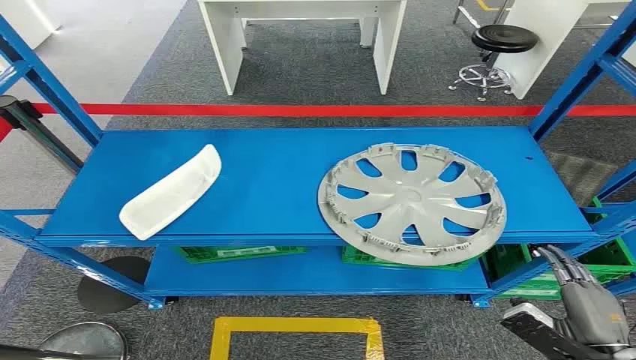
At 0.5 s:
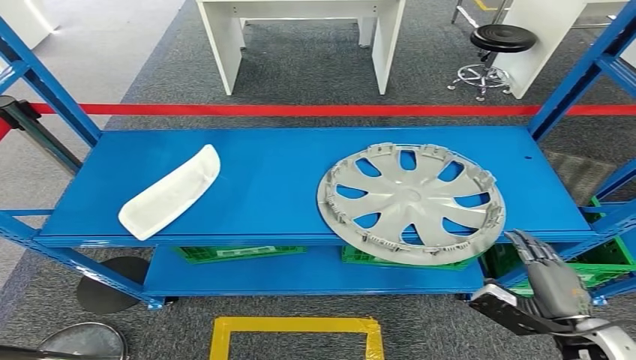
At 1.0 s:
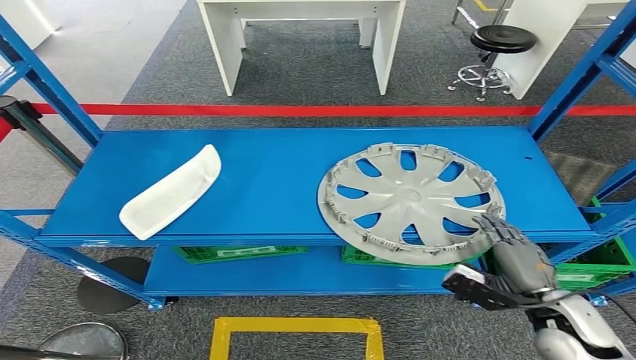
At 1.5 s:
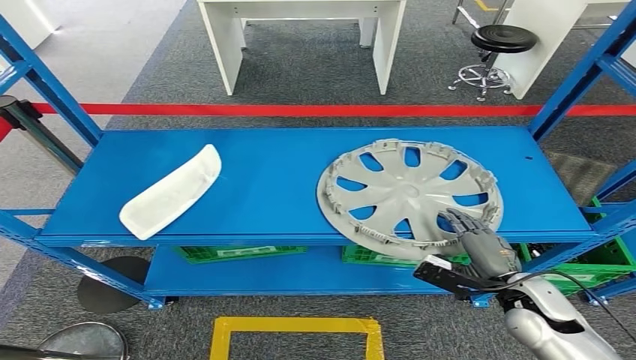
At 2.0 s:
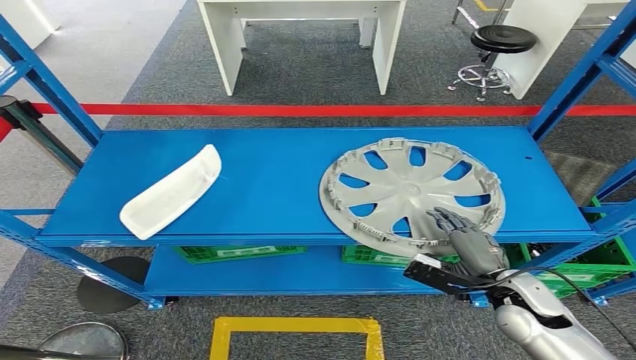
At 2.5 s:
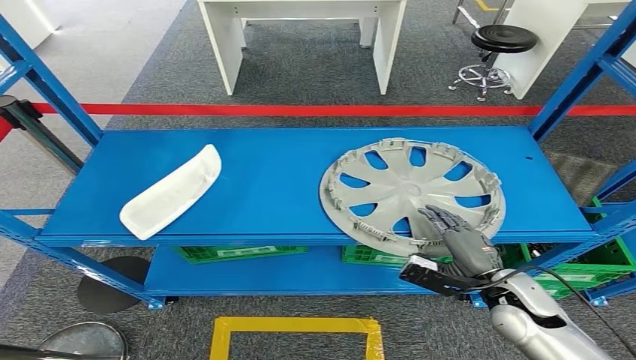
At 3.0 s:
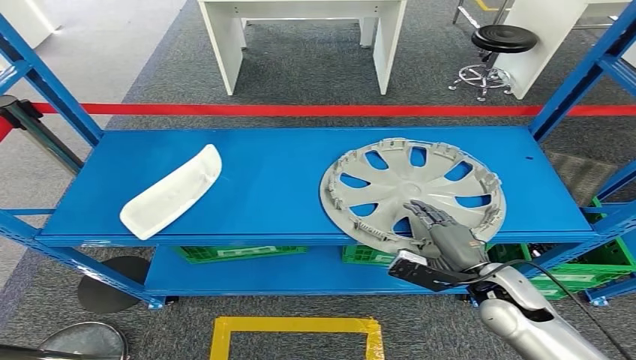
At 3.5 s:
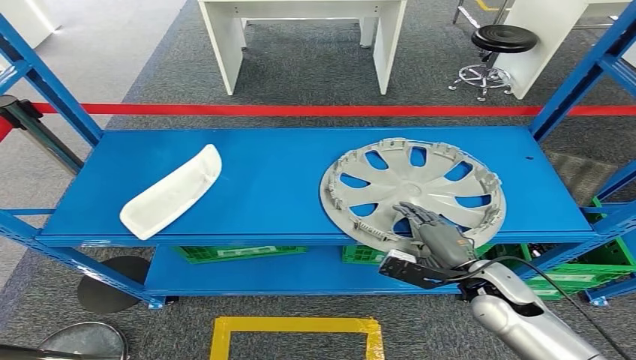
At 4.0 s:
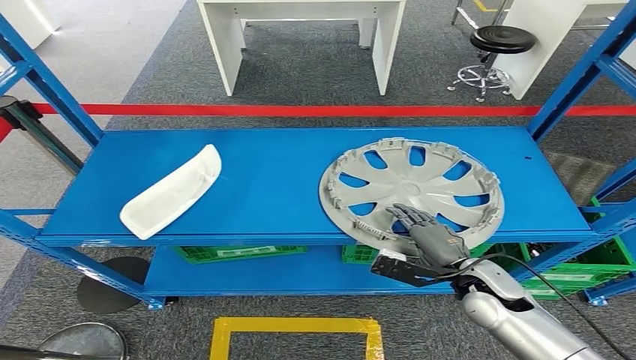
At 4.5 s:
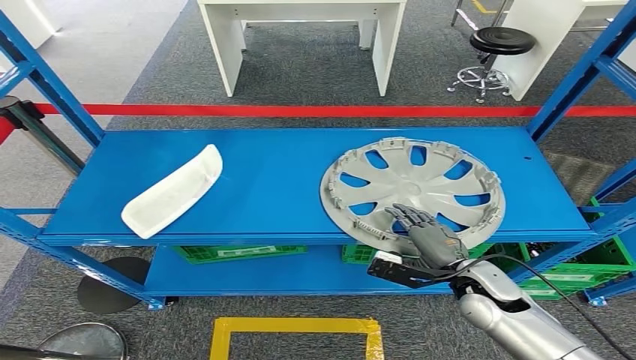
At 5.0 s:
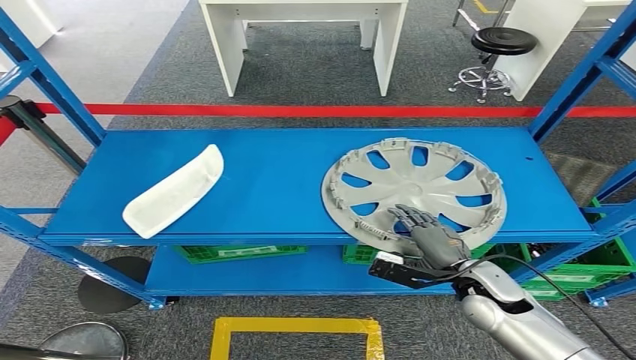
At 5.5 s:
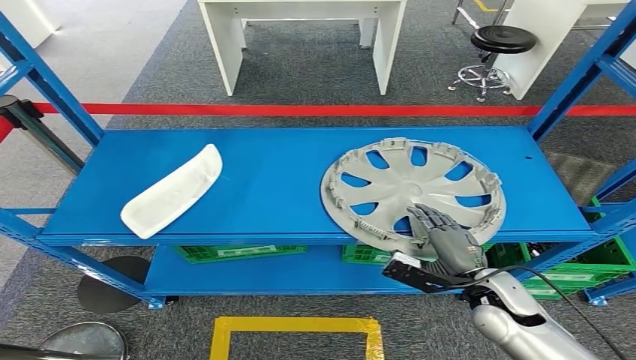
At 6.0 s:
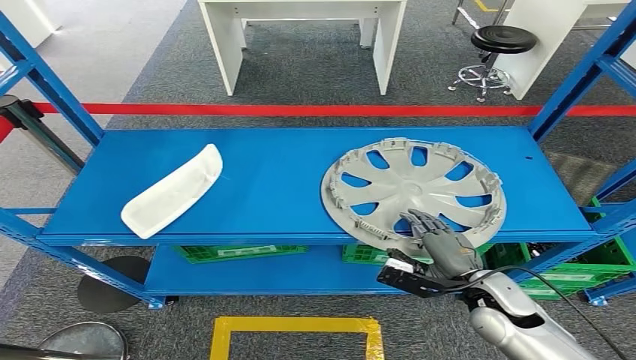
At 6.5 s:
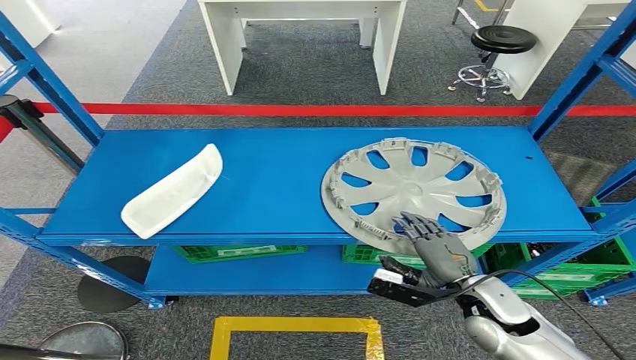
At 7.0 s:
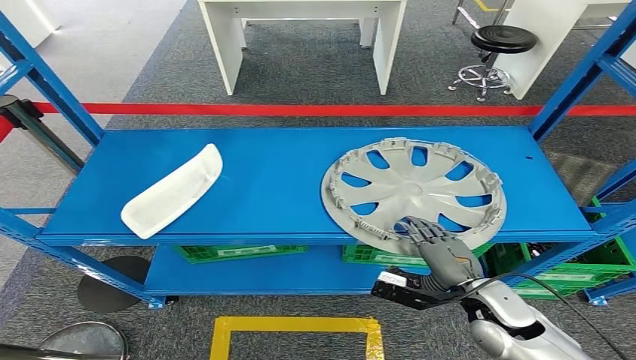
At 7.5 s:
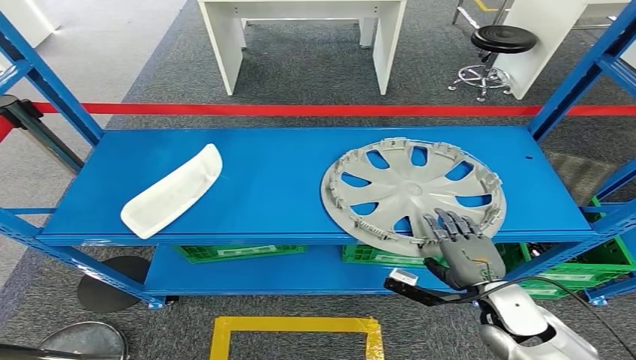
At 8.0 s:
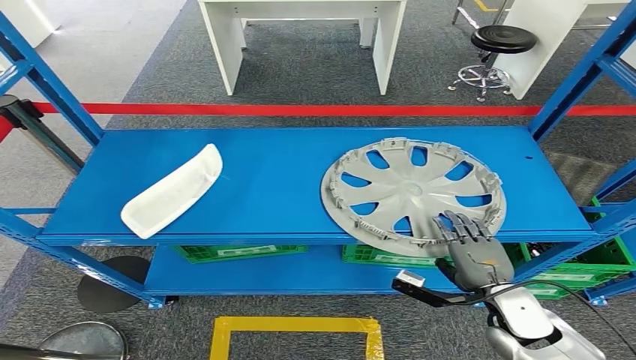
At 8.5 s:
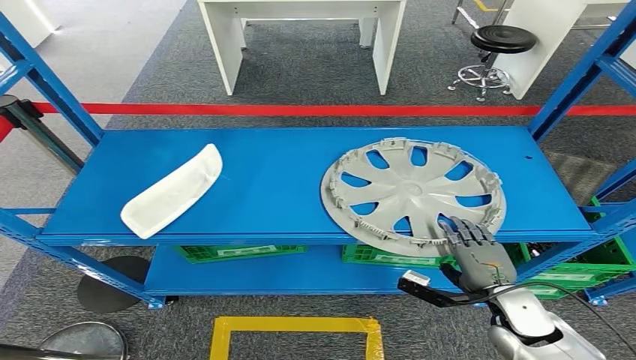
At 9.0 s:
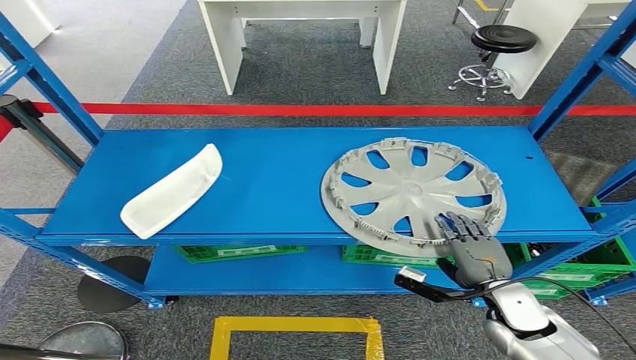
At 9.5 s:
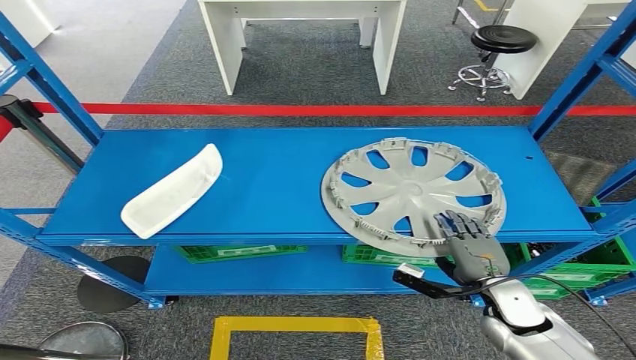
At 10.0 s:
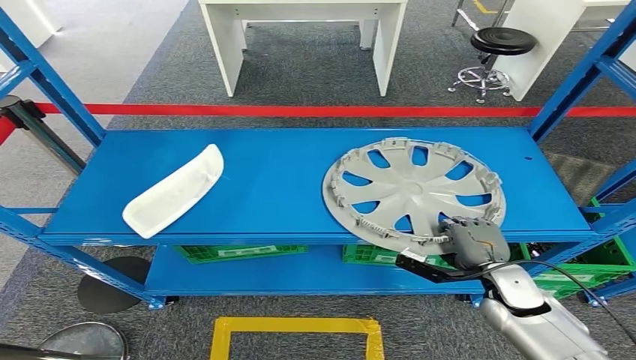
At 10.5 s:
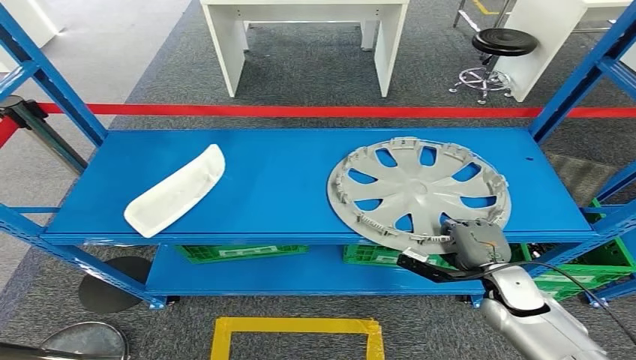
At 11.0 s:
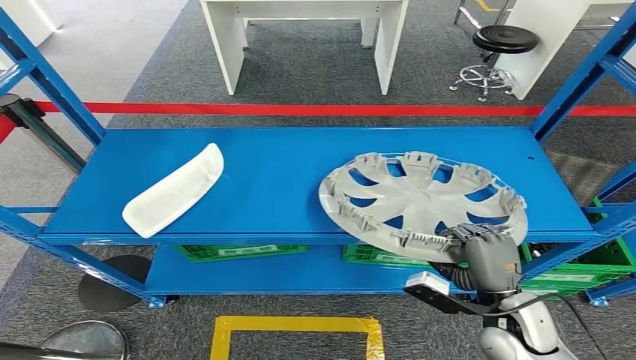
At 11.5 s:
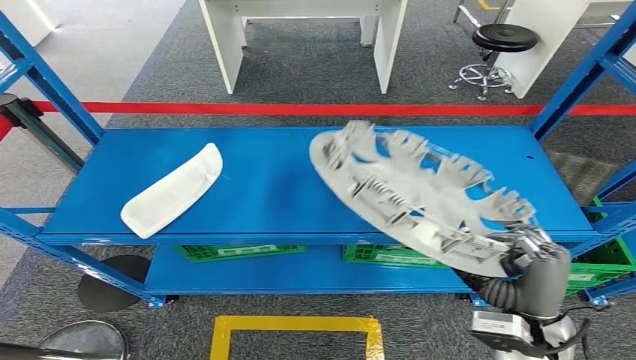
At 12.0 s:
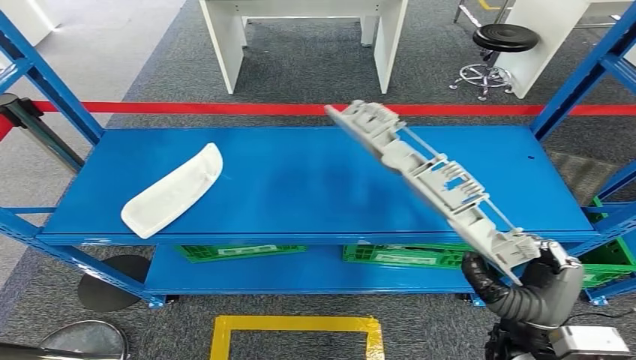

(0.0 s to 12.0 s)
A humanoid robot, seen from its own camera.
2.0 s - 4.0 s: The right hand changes place by some 5 cm.
4.0 s - 6.0 s: The hands stay close to where they were, moving slightly.
8.0 s - 10.0 s: The right hand ends up about 5 cm from where it was.

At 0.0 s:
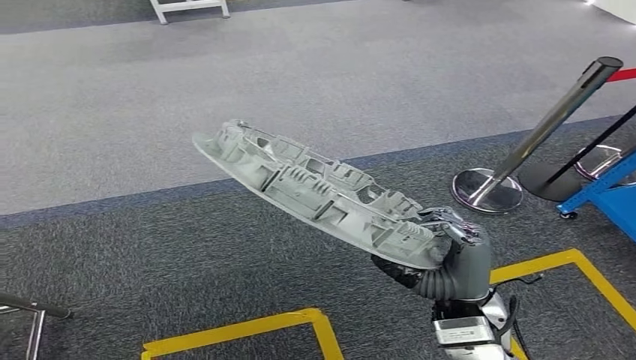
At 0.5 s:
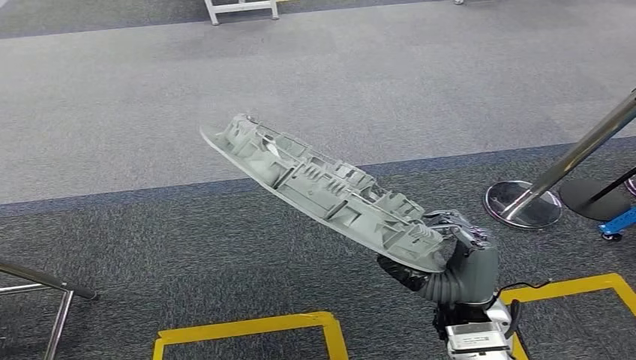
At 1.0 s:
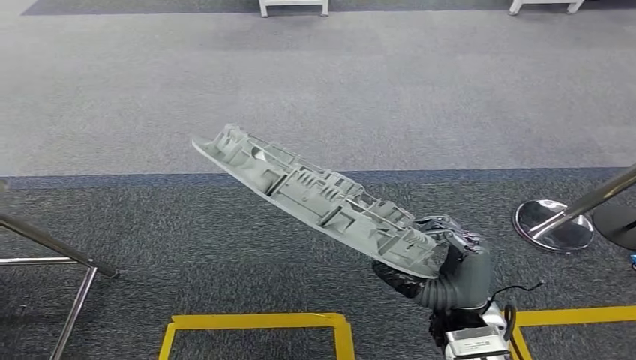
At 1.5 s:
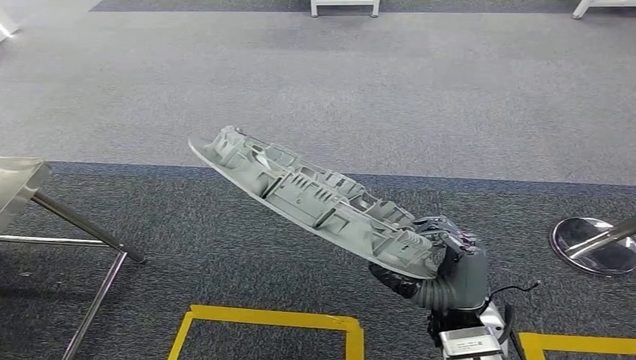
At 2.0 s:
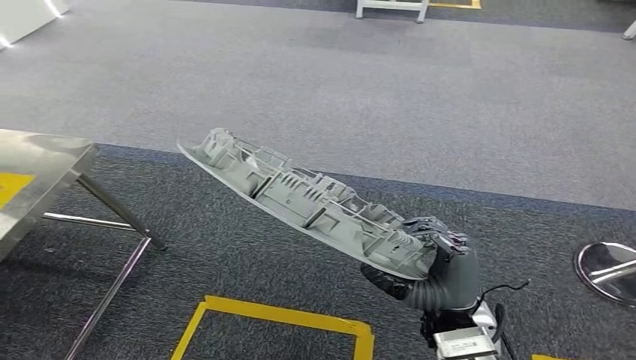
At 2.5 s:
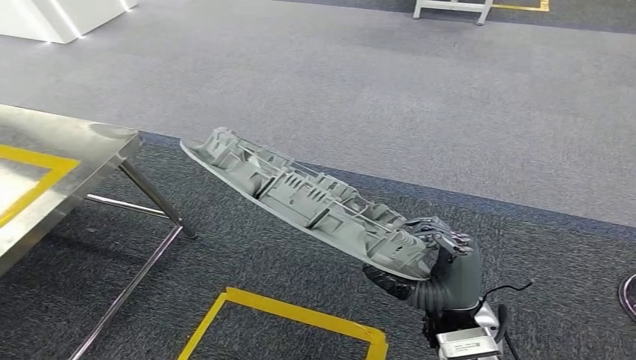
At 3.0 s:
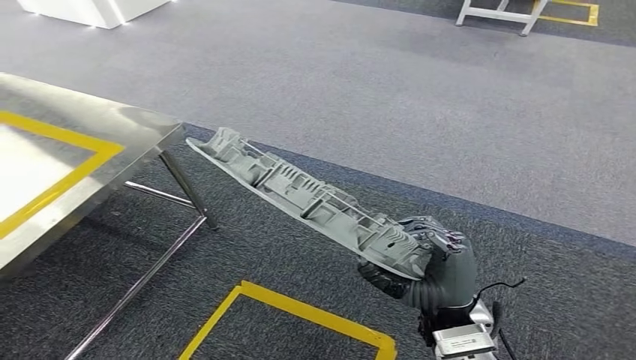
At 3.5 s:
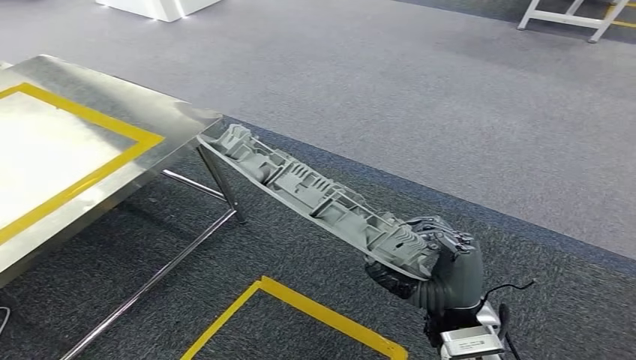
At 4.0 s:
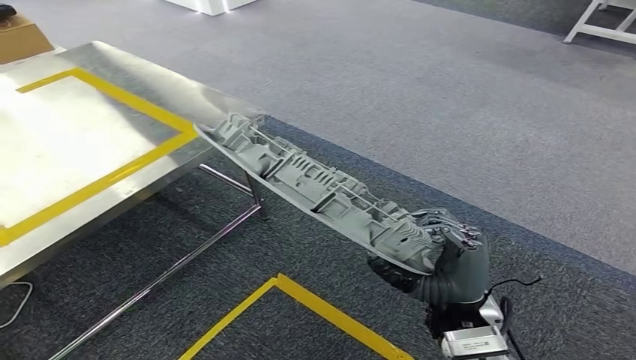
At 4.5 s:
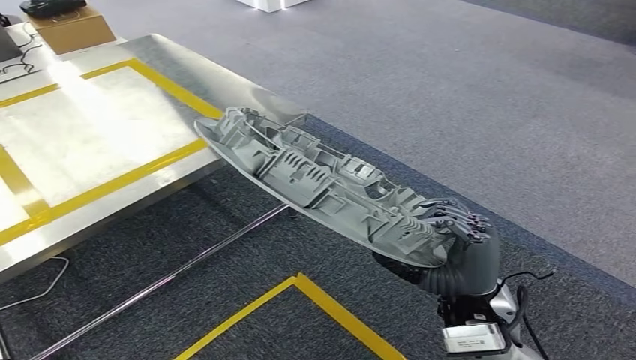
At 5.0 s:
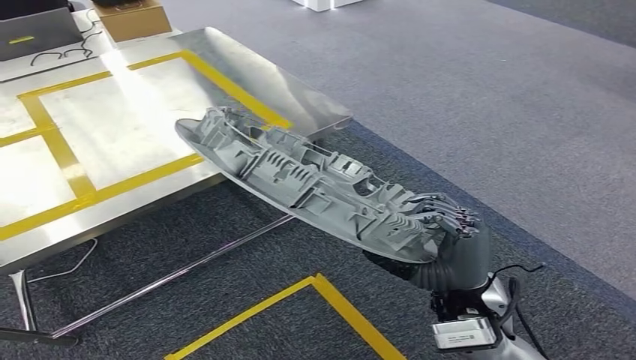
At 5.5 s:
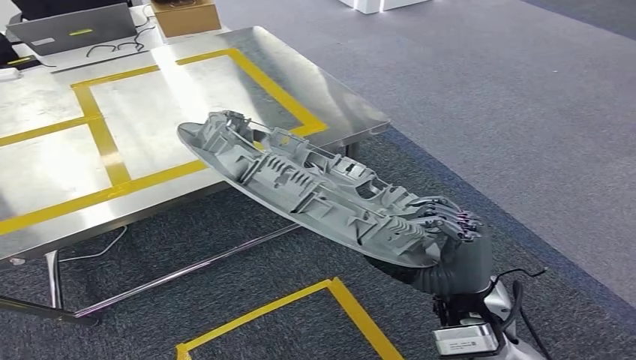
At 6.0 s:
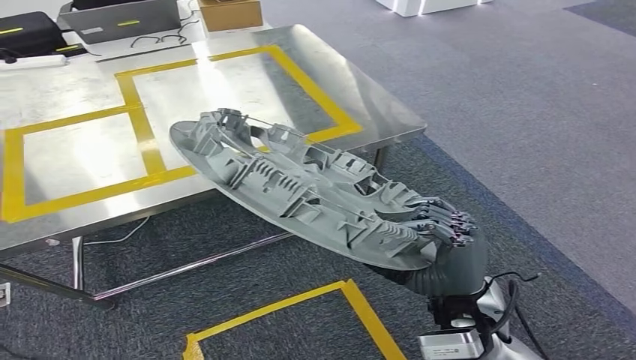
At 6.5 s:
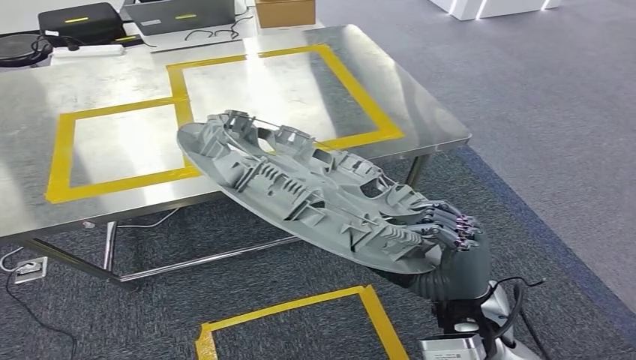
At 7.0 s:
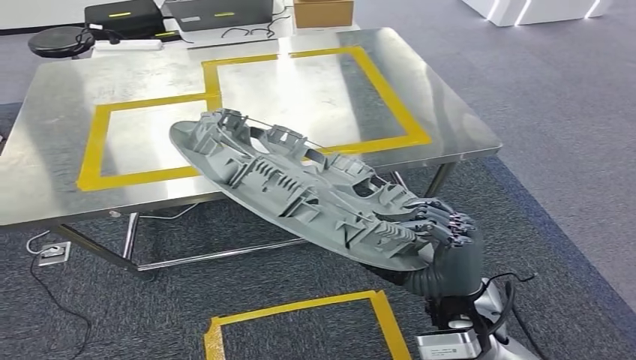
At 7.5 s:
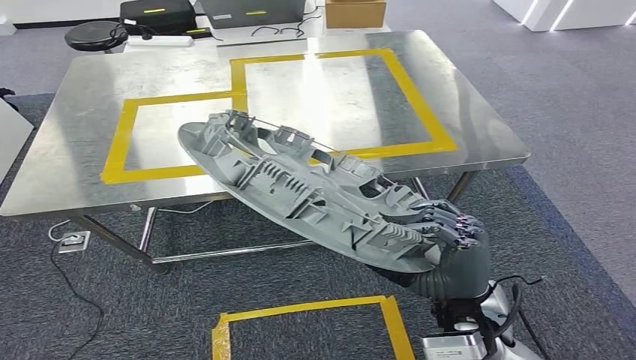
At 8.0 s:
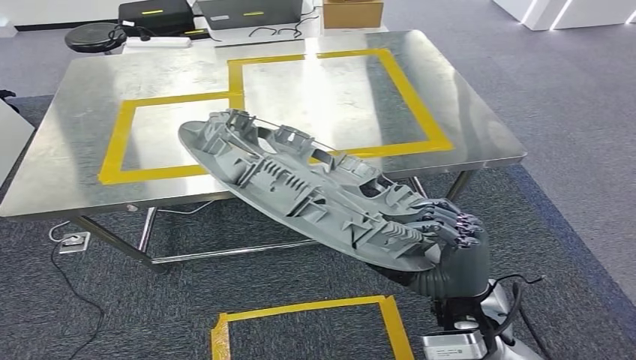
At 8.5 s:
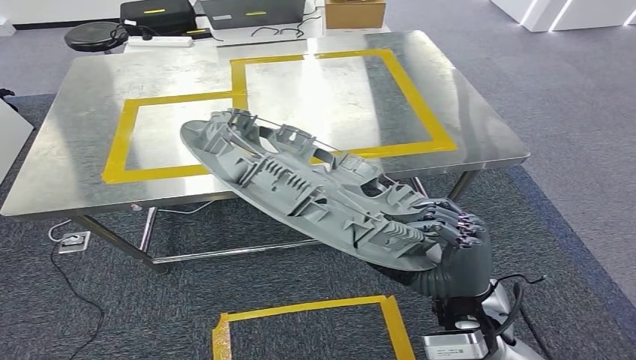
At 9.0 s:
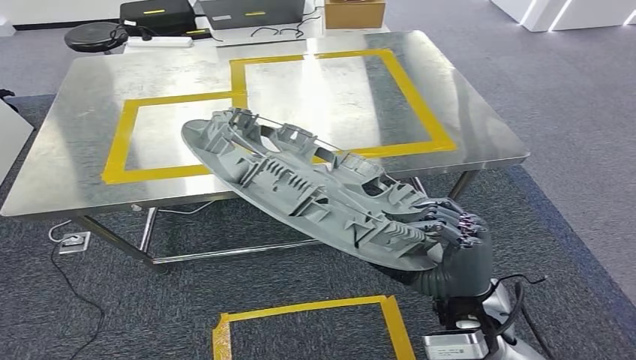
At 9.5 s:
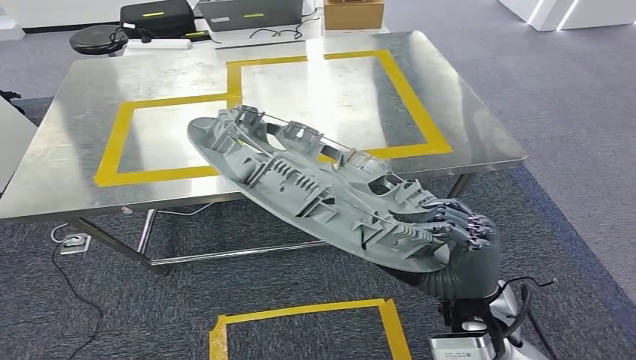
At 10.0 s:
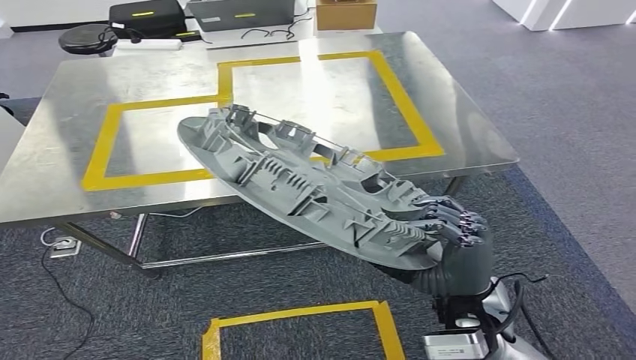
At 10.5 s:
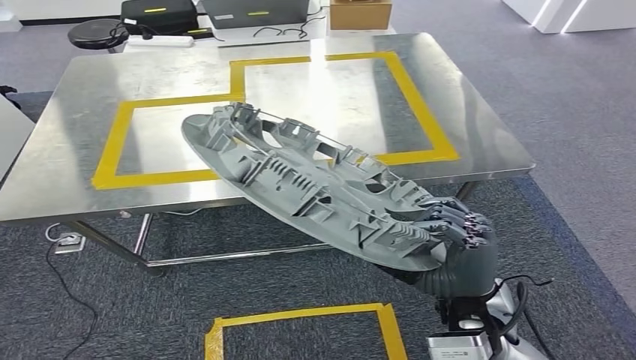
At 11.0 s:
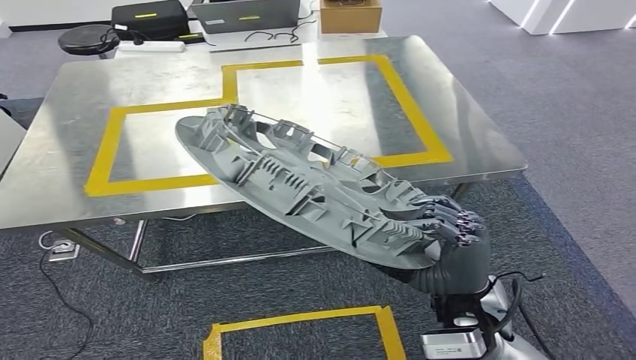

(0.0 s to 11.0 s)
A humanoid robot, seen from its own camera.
7.5 s - 9.0 s: Neither hand changes place.
